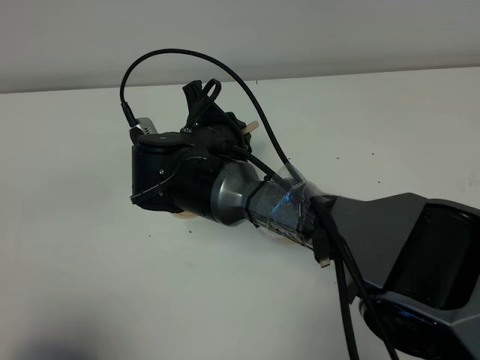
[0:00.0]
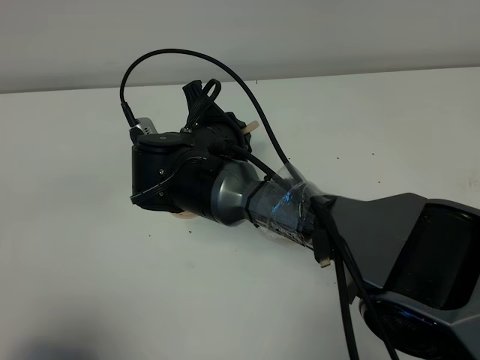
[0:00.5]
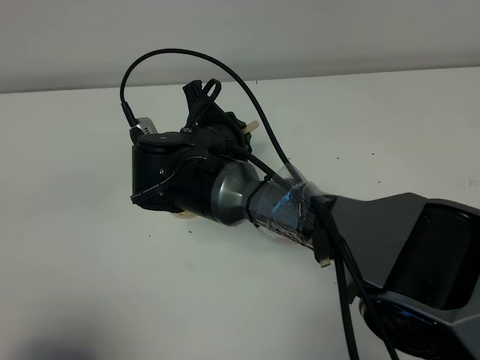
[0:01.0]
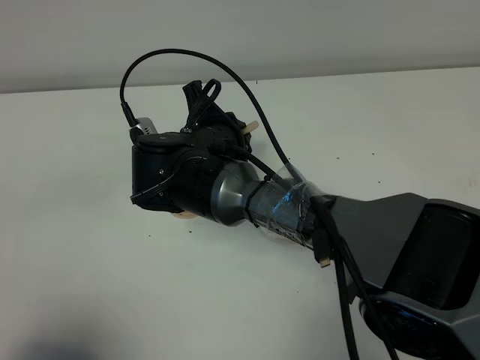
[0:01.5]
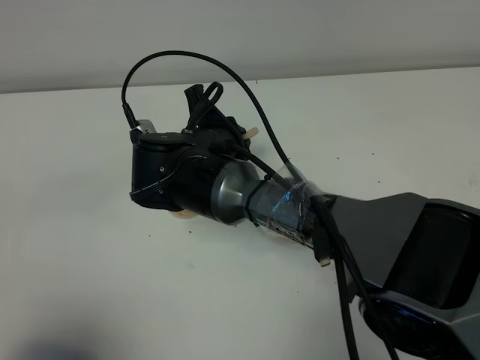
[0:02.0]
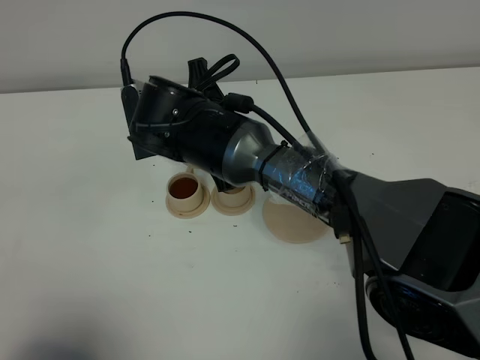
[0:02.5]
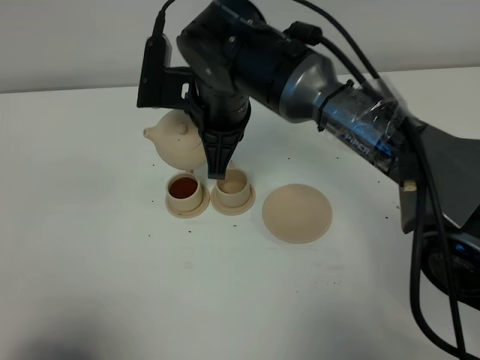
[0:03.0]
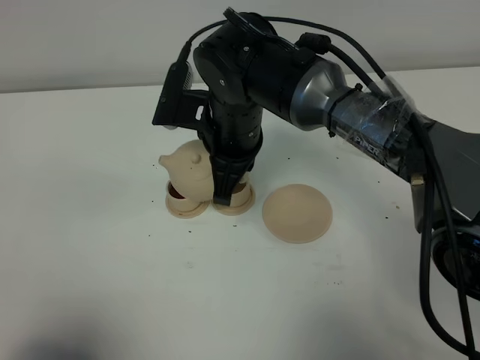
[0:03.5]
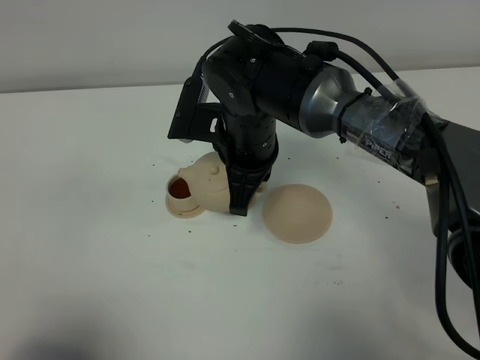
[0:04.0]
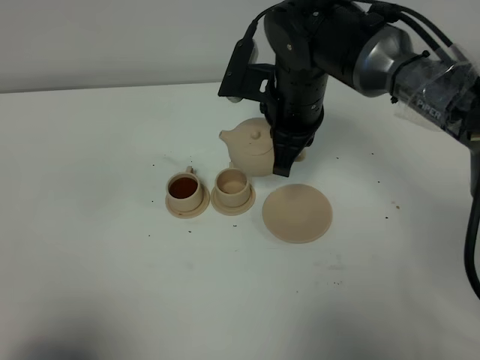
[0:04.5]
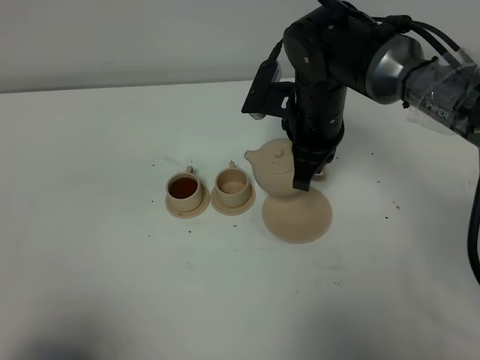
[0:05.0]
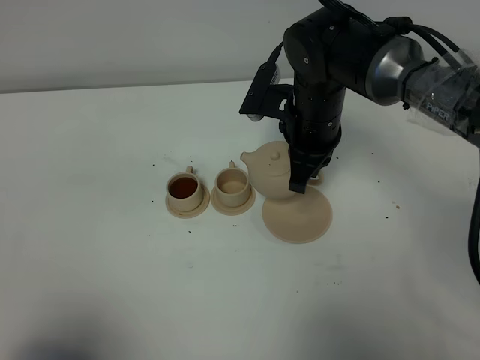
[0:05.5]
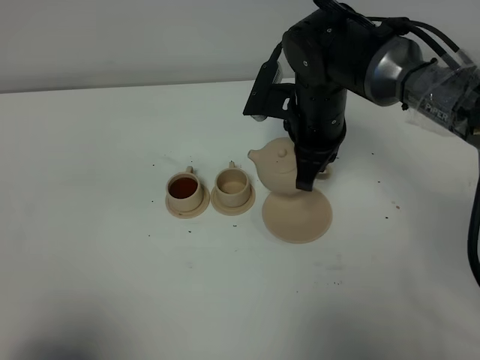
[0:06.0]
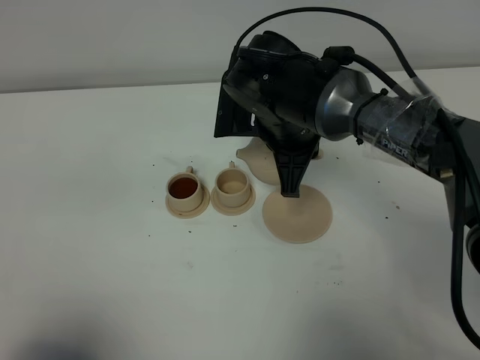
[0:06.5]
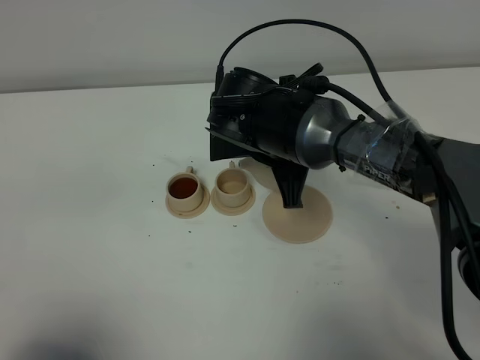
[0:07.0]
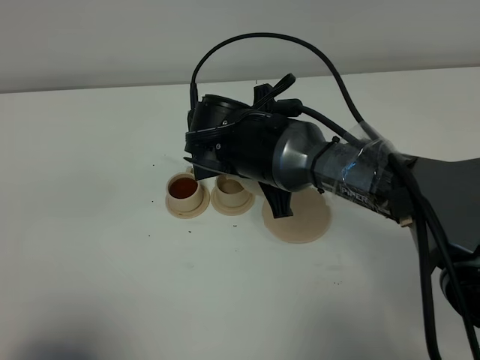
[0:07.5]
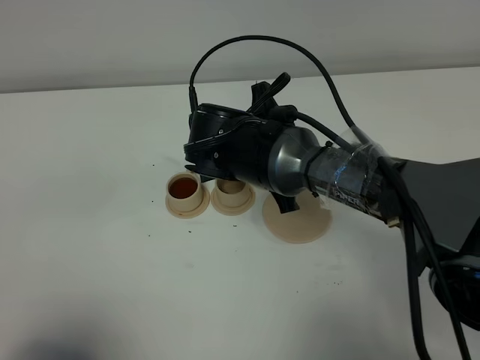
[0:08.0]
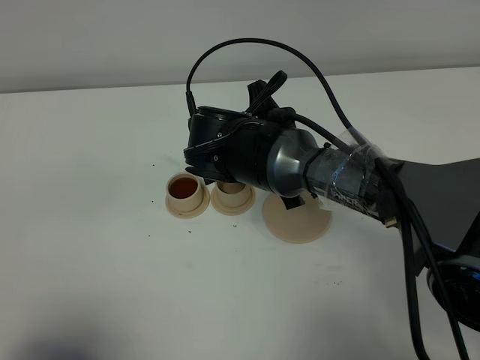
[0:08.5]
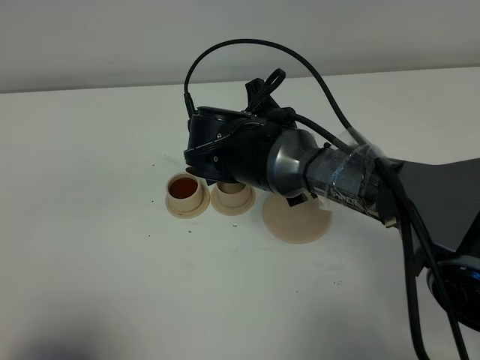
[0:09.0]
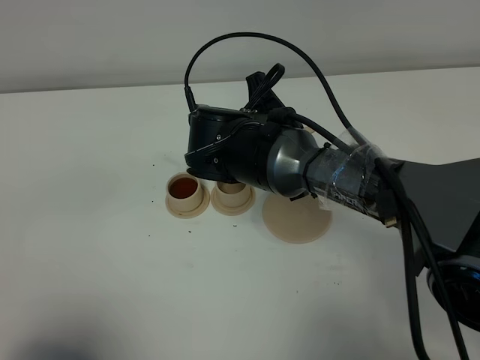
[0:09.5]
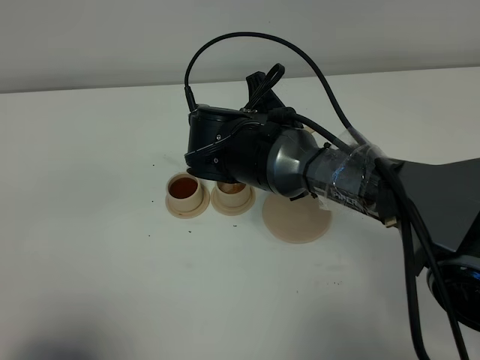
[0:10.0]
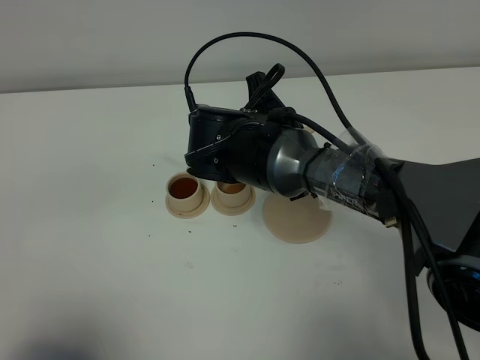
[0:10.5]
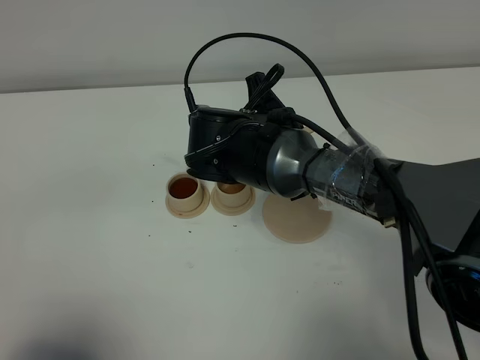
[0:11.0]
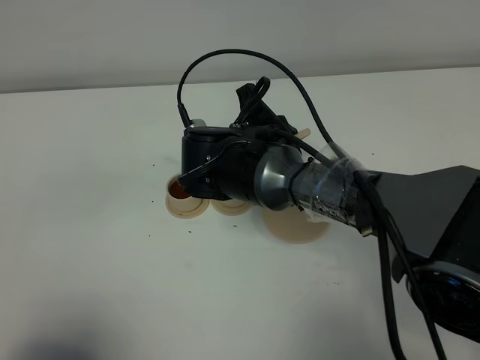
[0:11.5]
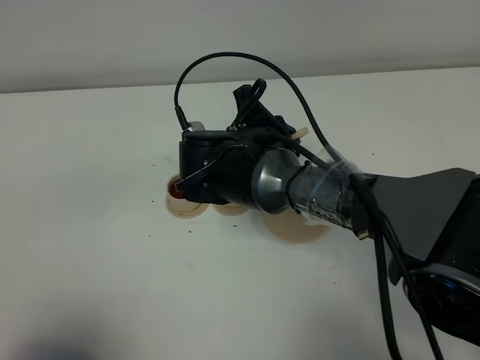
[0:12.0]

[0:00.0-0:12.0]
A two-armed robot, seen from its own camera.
Task of the whole recording: grasp the brown teapot and pour the tea into the two brown teacups one by one, put the brown teapot back in its original place.
0.0 to 2.0 s: Both grippers stay put.
2.0 to 4.0 s: The right gripper travels to the right by about 5 cm.
4.0 to 6.0 s: The right gripper heads to the right, covering approximately 10 cm.
6.0 to 8.0 s: The right gripper travels to the left and backward by approximately 10 cm.
8.0 to 12.0 s: The grippers stay close to where they were, moving slightly.

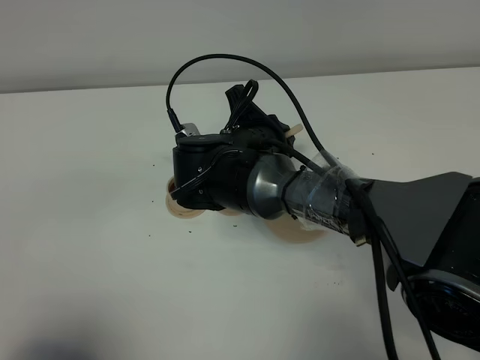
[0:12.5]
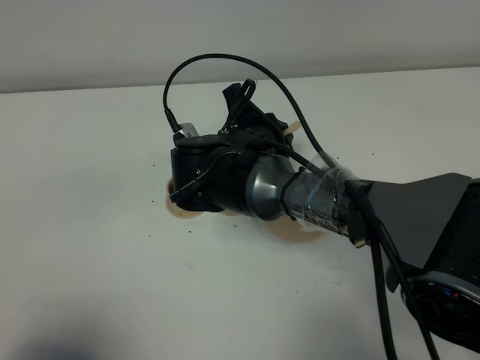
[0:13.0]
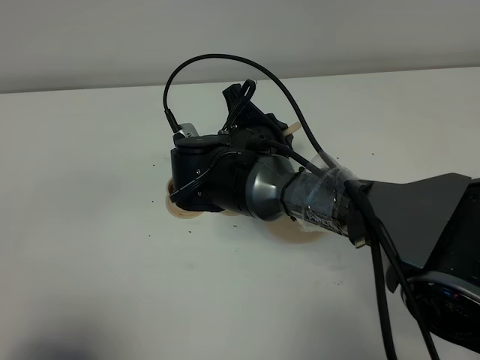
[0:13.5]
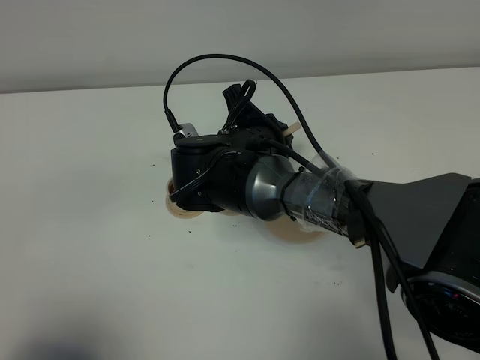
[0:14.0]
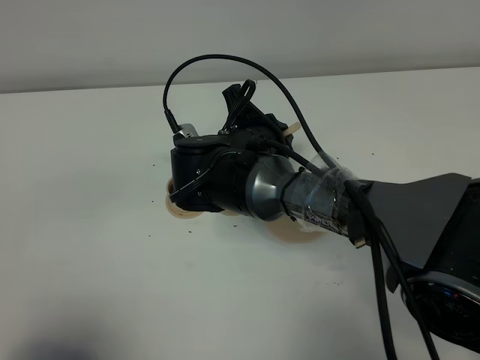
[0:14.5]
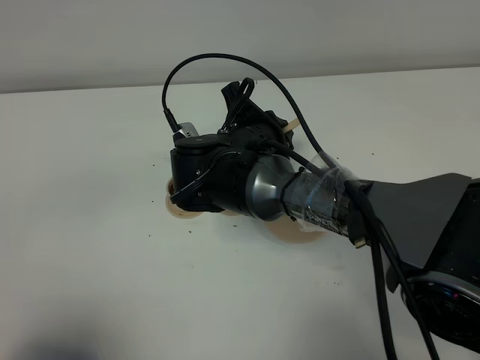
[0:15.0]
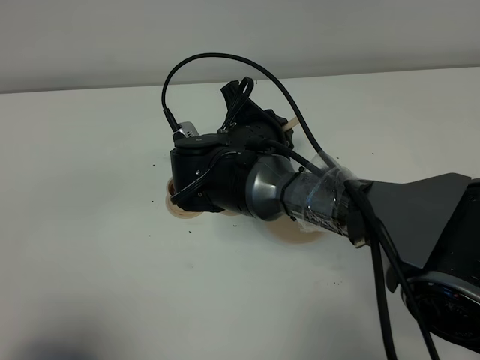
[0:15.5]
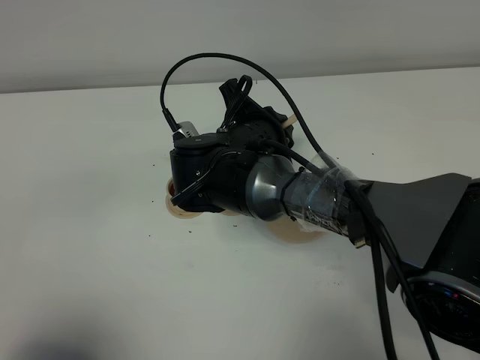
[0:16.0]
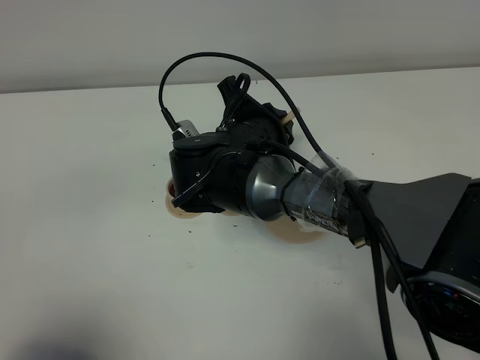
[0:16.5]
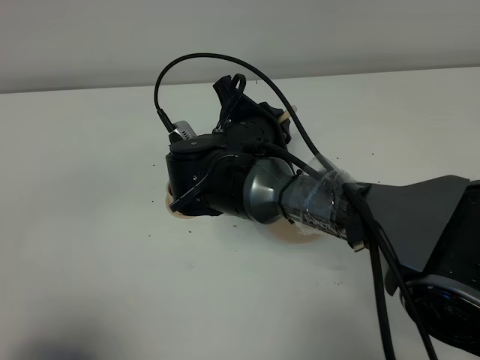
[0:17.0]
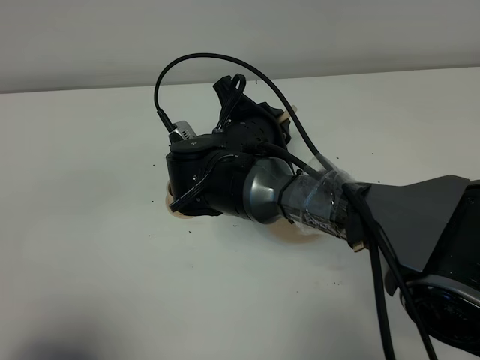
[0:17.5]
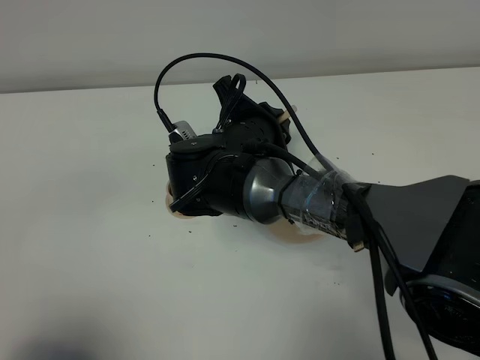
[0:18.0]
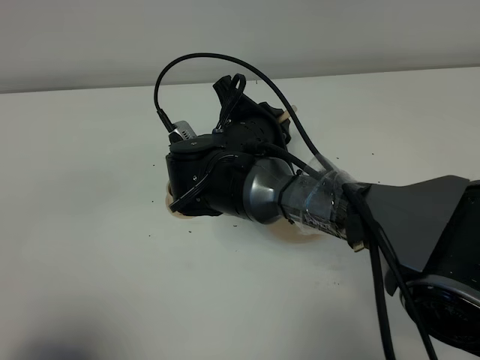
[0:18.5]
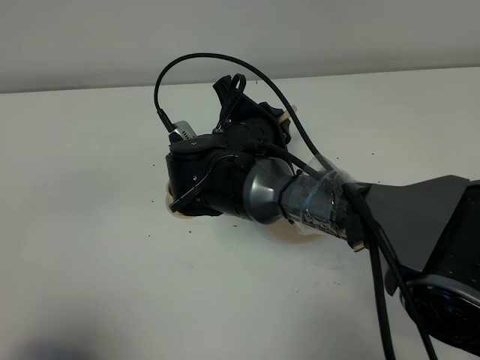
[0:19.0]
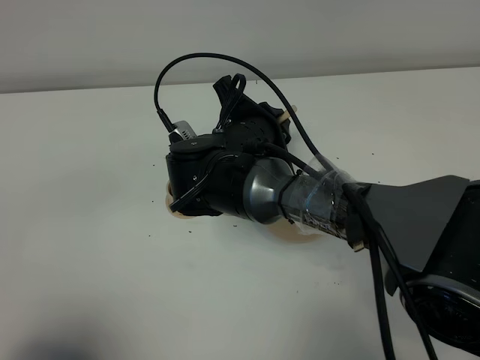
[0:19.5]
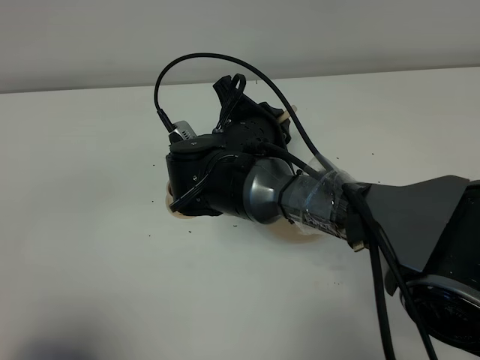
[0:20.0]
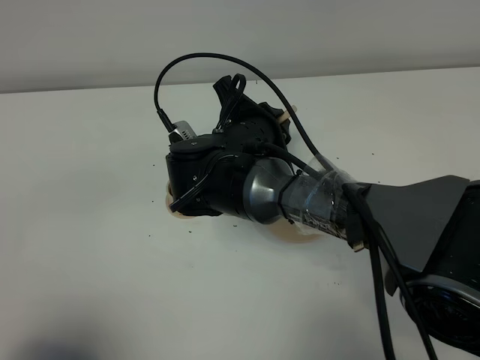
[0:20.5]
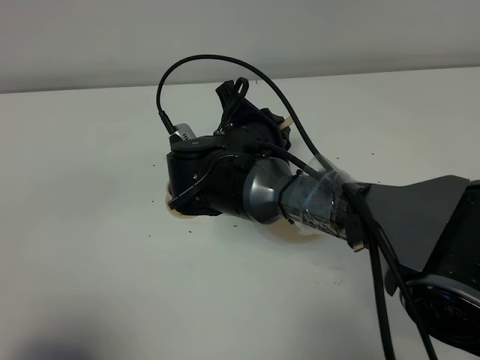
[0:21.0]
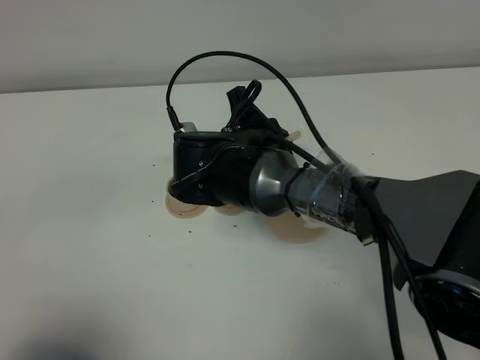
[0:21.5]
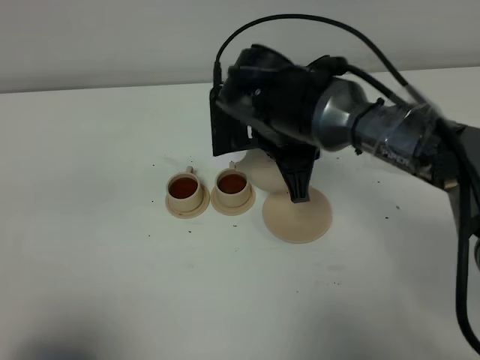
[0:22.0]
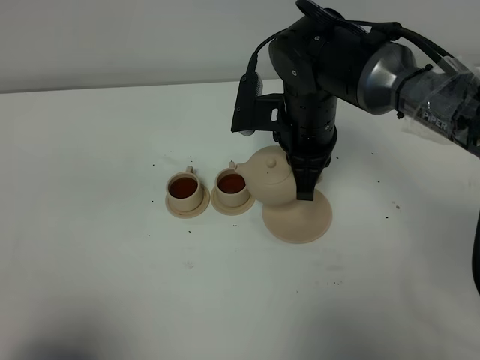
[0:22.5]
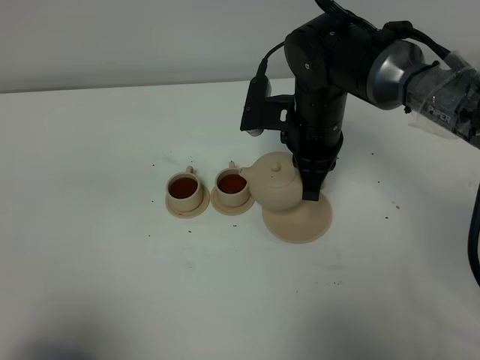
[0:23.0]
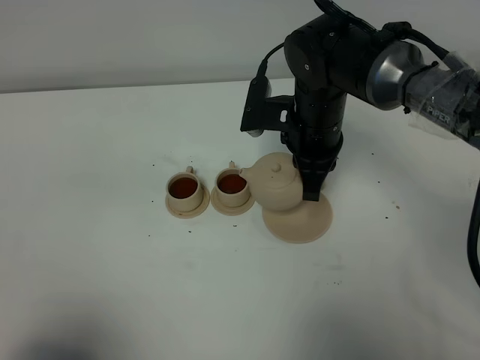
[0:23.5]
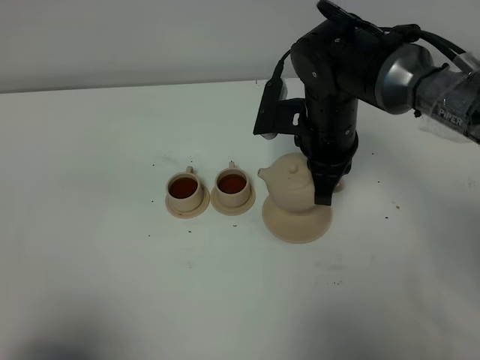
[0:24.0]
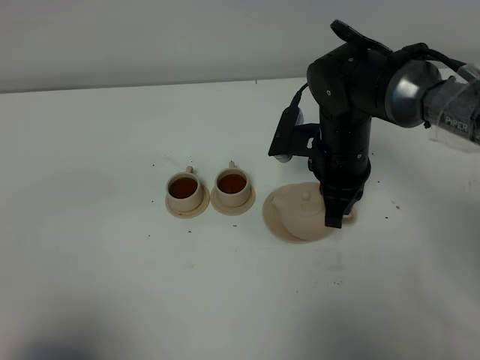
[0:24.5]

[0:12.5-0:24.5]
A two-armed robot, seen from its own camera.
Task of the whole recording: grasp the brown teapot and pour the tea into the two brown teacups one by one, put the brown teapot back in its original place.
Step, 12.5 to 21.5 s: Pour tea into the teacup with the right gripper.
12.5 to 14.5 s: Both grippers stay put.
14.5 to 16.5 s: The grippers stay close to where they were, moving slightly.
16.5 to 20.5 s: Both grippers stay about where they are.
20.5 to 22.5 s: The right gripper moves to the right, roughly 10 cm.
22.5 to 24.5 s: The right gripper shifts by roughly 5 cm.

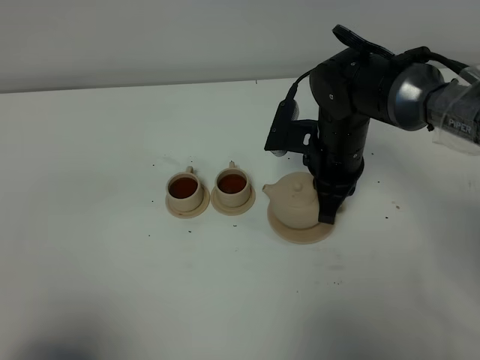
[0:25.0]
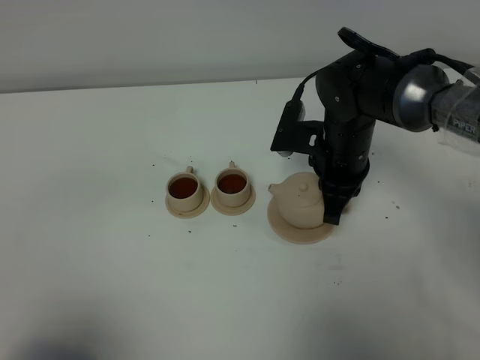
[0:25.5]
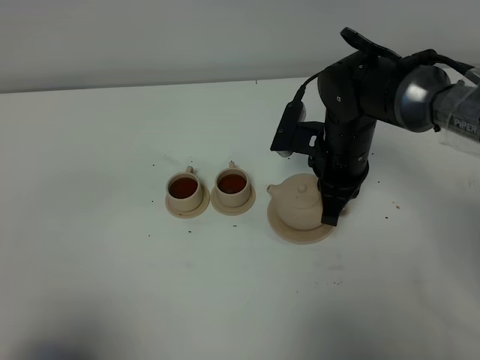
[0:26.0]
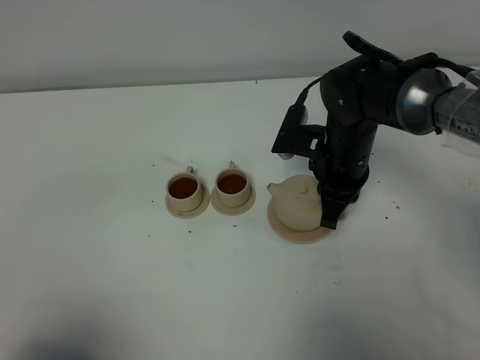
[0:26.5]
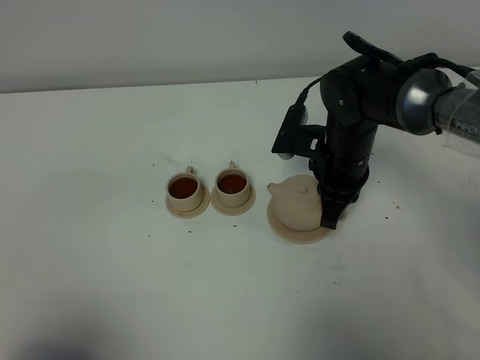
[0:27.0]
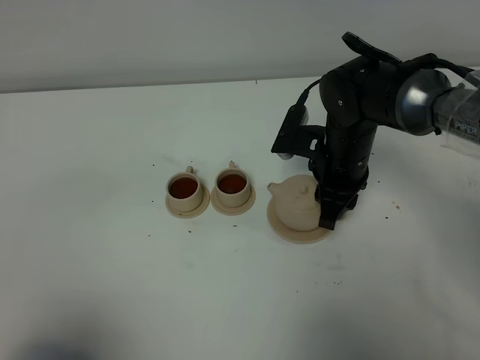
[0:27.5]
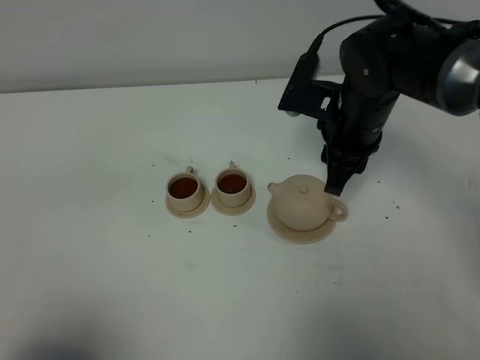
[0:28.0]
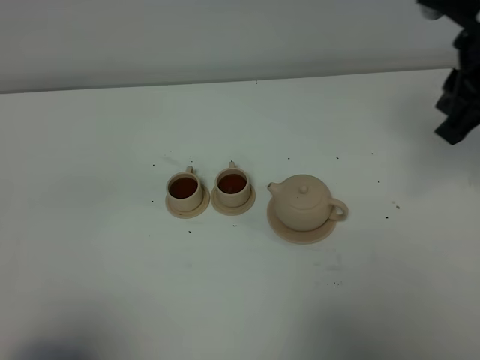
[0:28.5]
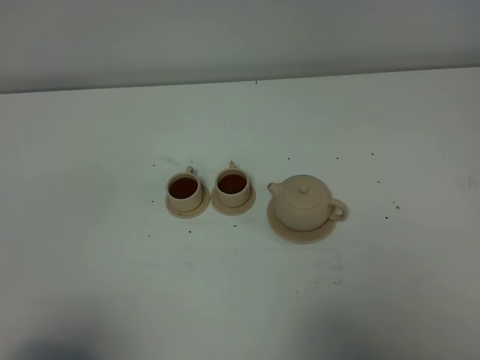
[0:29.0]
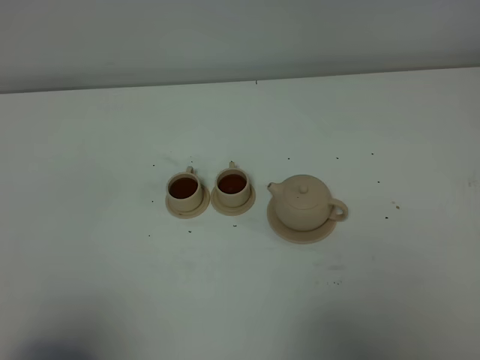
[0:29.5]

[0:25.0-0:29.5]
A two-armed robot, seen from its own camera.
Task of the whole recording: grasp the brown teapot and pour the tea into the two brown teacups one by one, put the brown teapot back in its original place.
25.0 to 27.0 s: There are only small adjustments of the grippers.
27.0 to 29.5 s: The right gripper travels backward, to the right and upward by roughly 40 cm.
